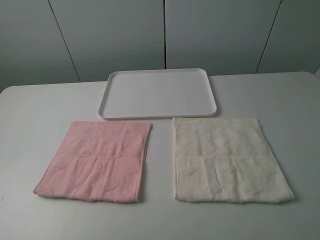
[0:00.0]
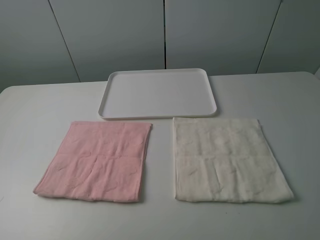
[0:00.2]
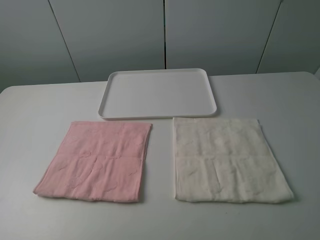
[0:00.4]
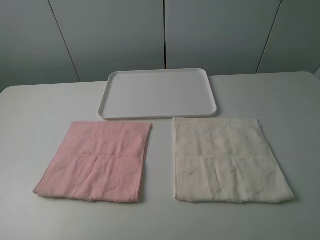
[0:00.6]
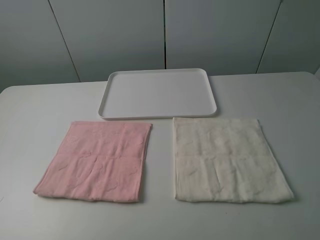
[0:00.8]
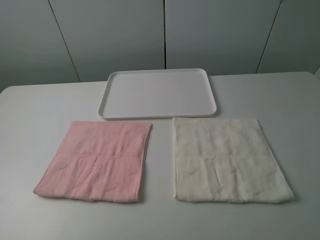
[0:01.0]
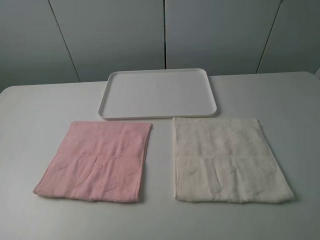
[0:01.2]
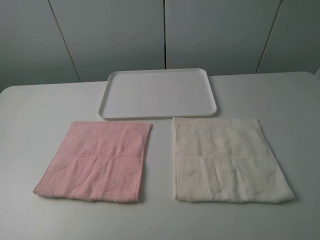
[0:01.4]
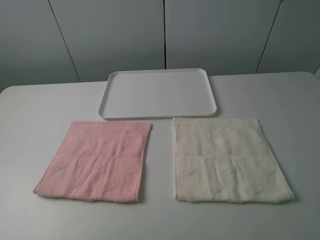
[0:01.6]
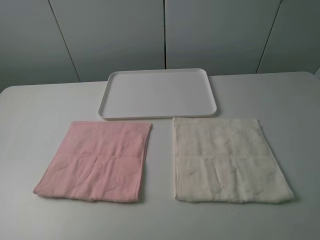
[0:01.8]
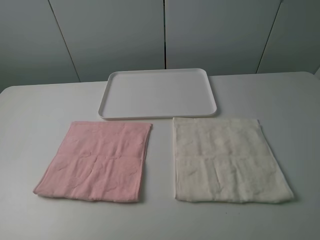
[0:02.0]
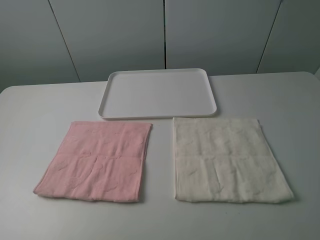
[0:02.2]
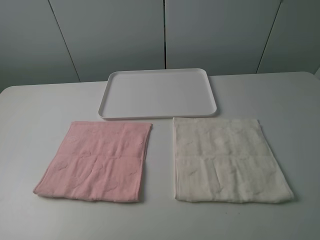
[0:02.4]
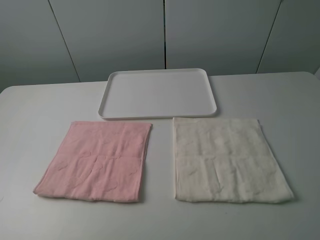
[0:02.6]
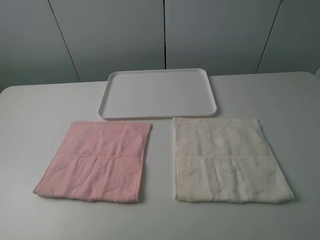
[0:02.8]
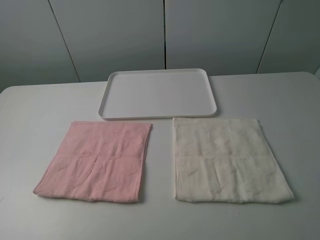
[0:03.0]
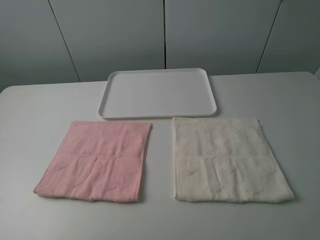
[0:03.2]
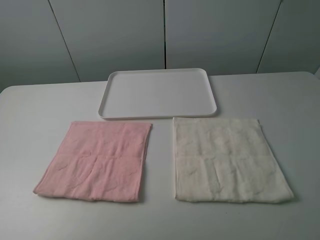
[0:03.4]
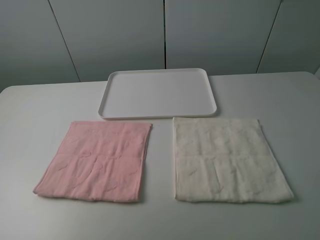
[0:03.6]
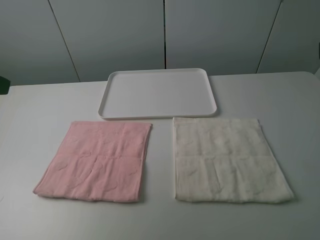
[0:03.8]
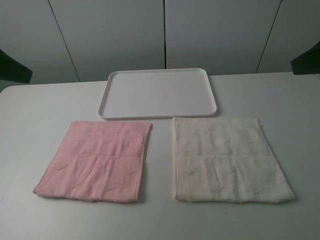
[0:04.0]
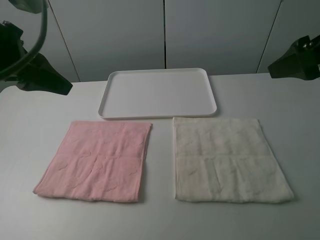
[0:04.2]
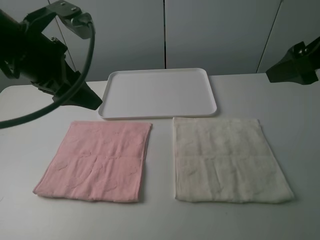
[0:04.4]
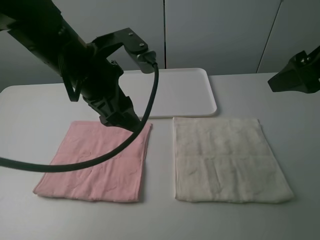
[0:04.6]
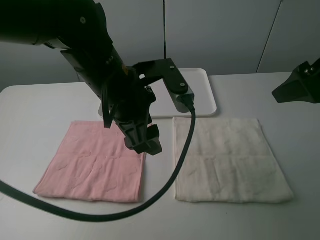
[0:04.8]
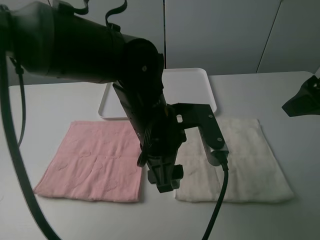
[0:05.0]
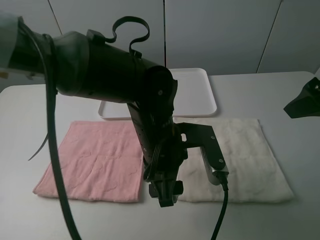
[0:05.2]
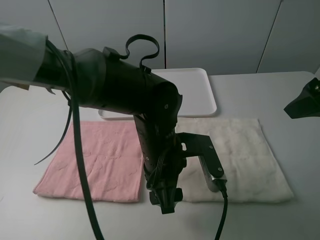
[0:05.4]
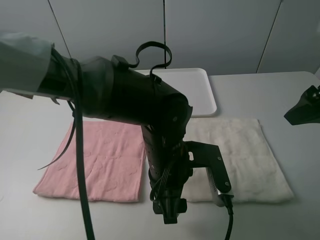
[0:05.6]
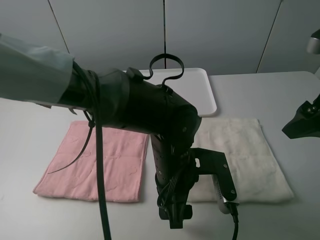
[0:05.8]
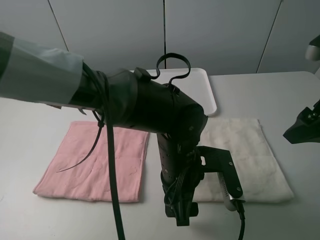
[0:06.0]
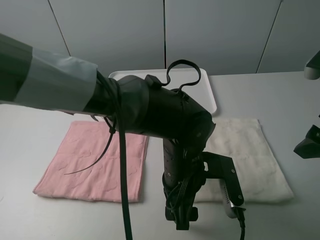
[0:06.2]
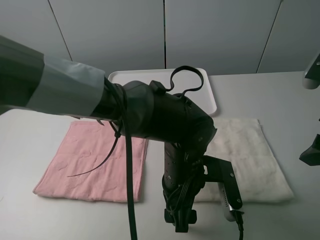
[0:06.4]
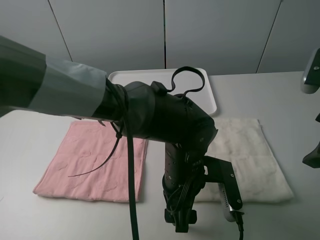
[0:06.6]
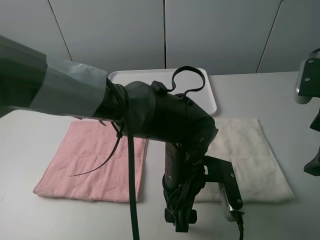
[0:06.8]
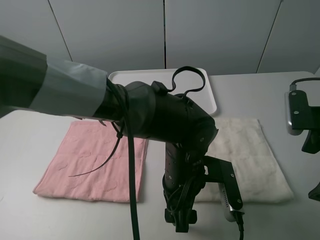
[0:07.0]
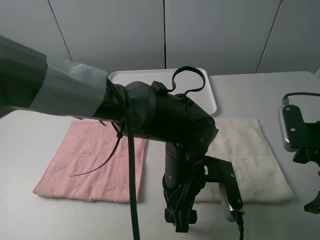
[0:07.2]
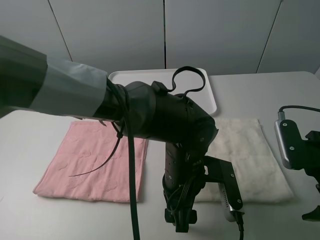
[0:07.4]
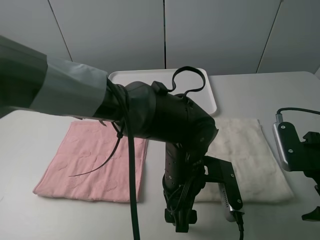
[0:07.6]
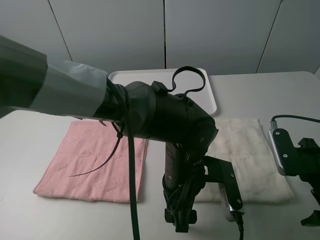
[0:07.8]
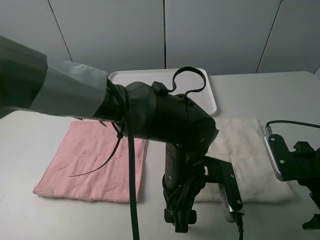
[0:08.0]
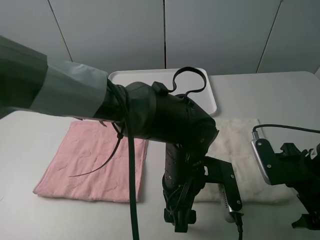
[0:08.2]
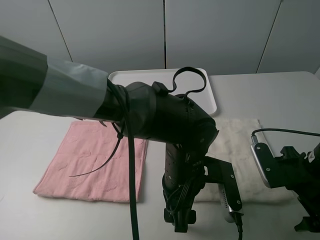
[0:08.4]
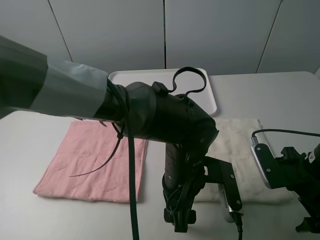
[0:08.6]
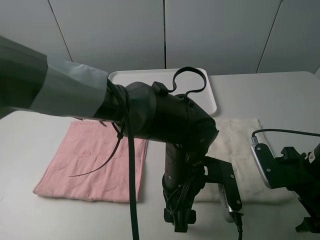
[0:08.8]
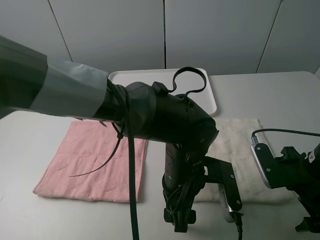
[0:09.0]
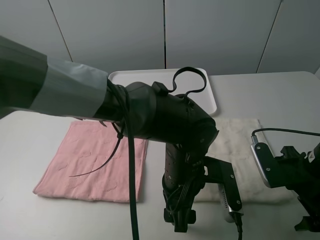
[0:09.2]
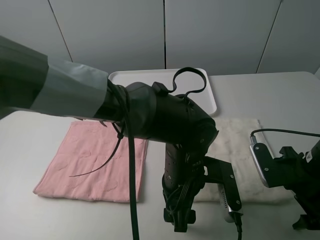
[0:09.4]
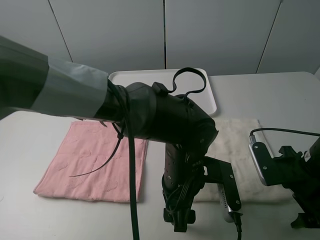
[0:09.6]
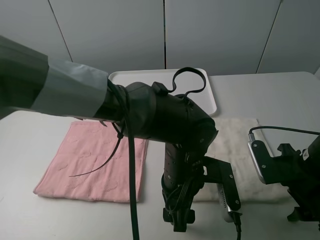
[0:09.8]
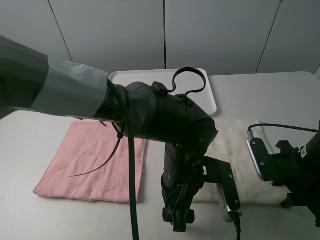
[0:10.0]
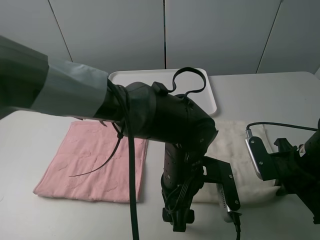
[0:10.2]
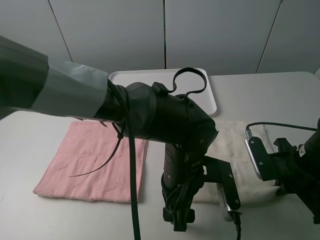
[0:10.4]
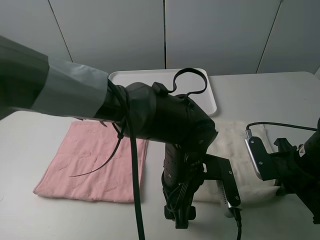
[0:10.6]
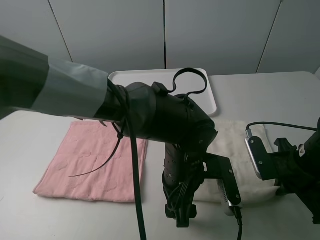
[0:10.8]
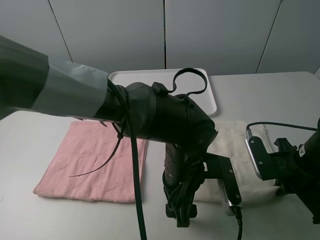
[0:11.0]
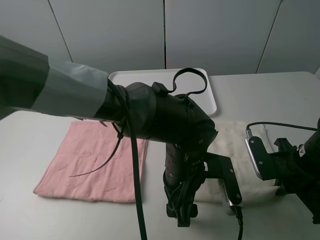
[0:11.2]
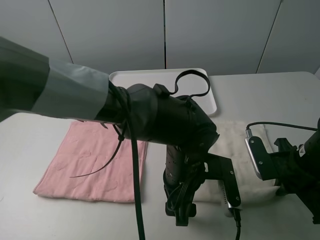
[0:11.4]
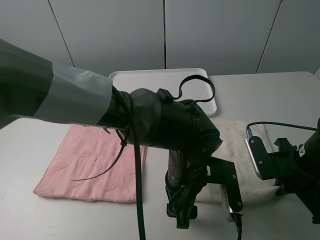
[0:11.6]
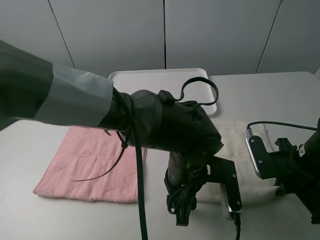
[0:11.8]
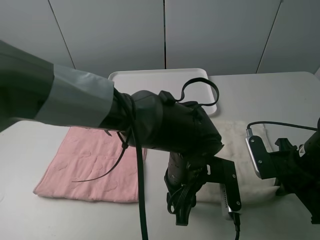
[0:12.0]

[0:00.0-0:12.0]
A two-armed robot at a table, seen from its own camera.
Task of the whole recording: fold one of the towels by two grippers and place it on the tray,then fold another towel by two grippers and place it on the folded towel.
0:00.0 to 0:03.0: Neither gripper changes place.
0:03.0 to 0:04.4: The right gripper goes some 20 cm forward. Meanwhile the left gripper travels forward and to the right by approximately 30 cm.
0:04.4 to 0:06.0: The left gripper shifts about 25 cm to the right and downward, while the right gripper goes approximately 5 cm downward.
0:06.0 to 0:07.6: The right gripper is displaced downward by about 10 cm.
0:07.6 to 0:09.0: The grippers make only small movements.
0:09.0 to 0:10.4: The right gripper closes up.
0:10.4 to 0:12.0: The left gripper closes.

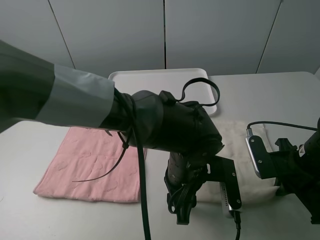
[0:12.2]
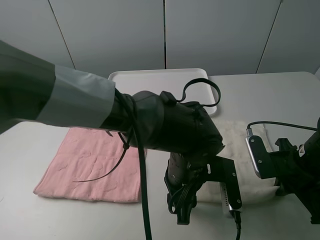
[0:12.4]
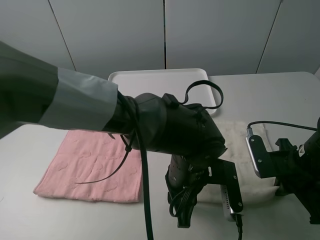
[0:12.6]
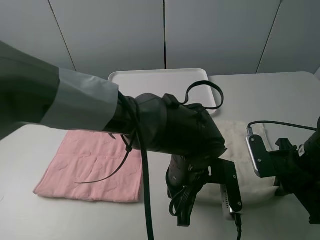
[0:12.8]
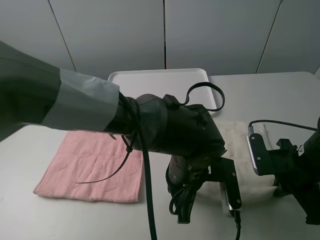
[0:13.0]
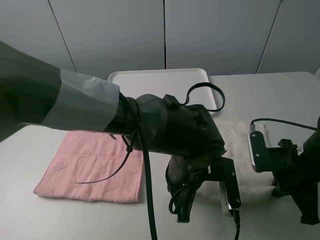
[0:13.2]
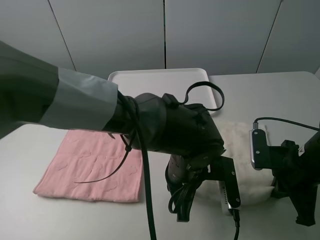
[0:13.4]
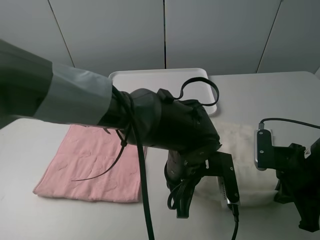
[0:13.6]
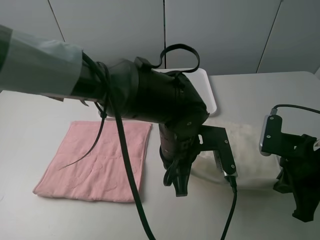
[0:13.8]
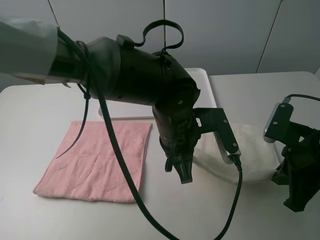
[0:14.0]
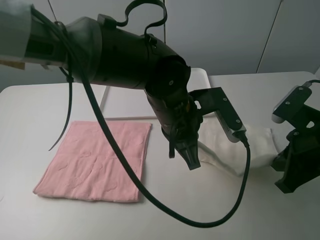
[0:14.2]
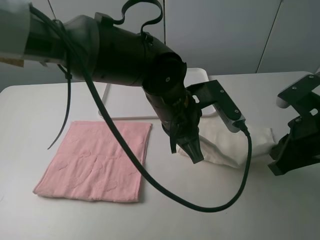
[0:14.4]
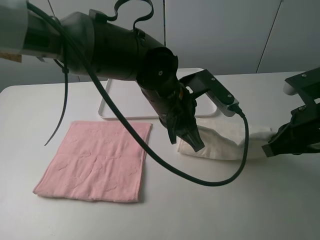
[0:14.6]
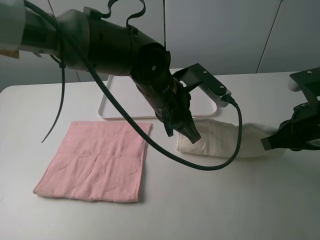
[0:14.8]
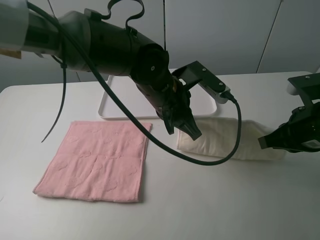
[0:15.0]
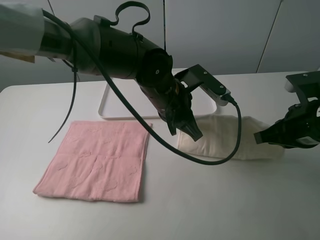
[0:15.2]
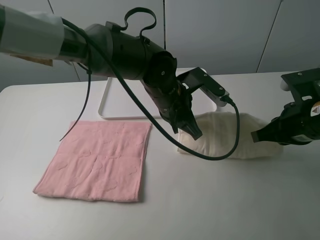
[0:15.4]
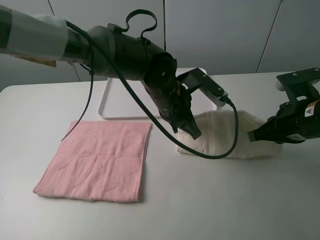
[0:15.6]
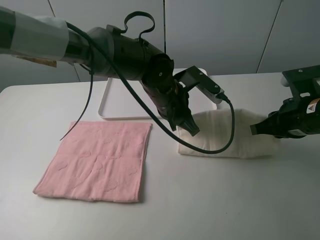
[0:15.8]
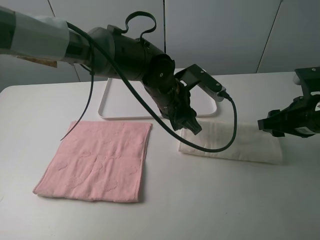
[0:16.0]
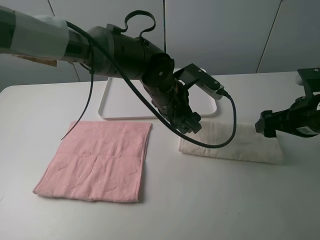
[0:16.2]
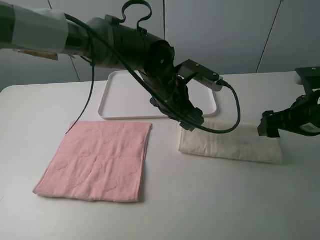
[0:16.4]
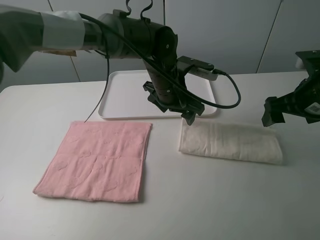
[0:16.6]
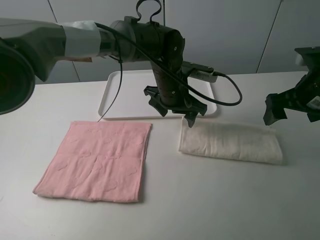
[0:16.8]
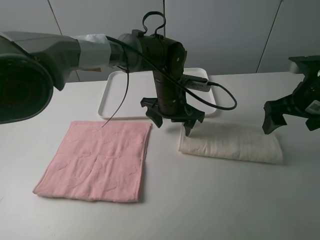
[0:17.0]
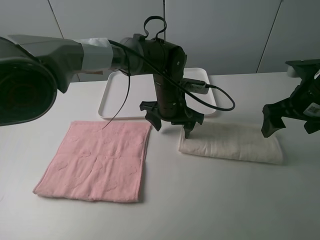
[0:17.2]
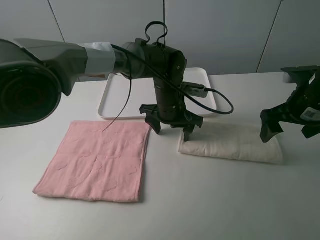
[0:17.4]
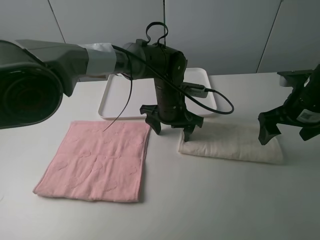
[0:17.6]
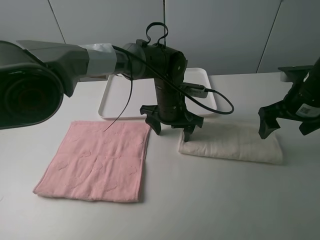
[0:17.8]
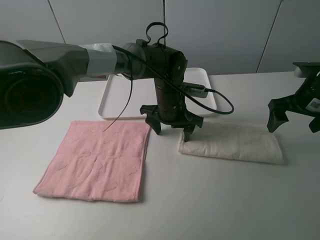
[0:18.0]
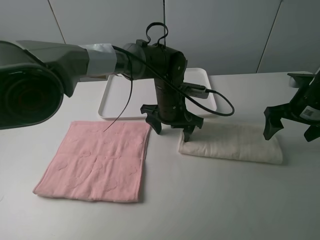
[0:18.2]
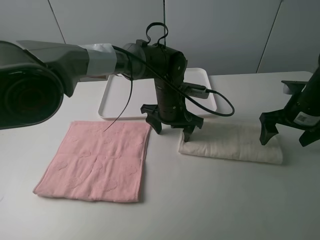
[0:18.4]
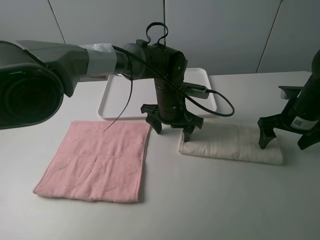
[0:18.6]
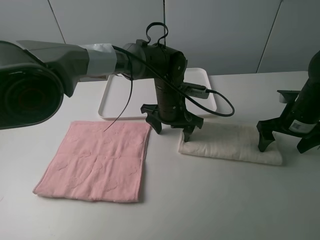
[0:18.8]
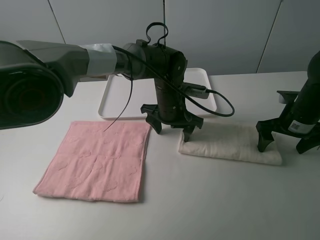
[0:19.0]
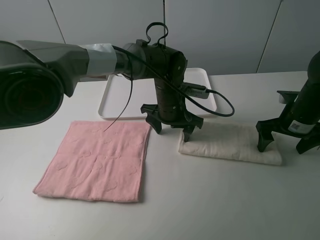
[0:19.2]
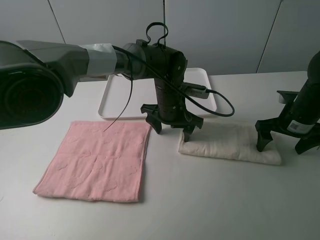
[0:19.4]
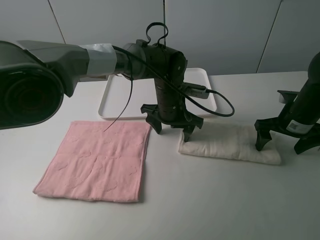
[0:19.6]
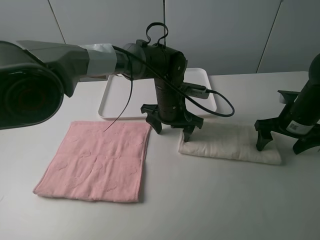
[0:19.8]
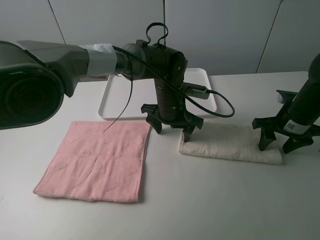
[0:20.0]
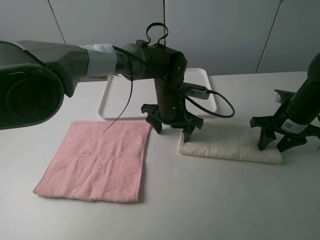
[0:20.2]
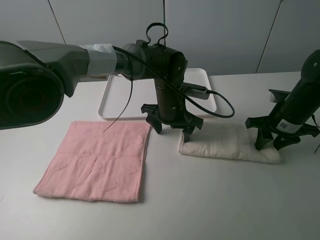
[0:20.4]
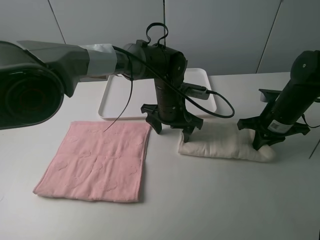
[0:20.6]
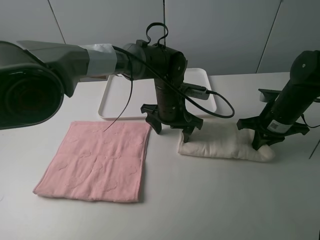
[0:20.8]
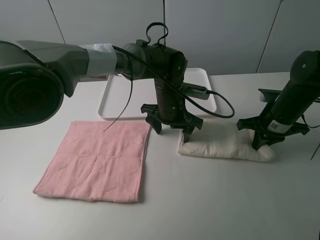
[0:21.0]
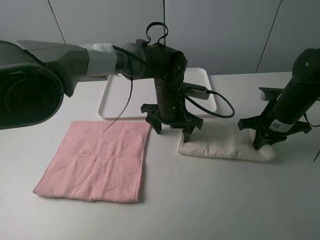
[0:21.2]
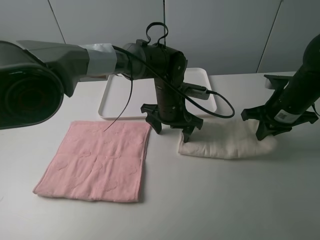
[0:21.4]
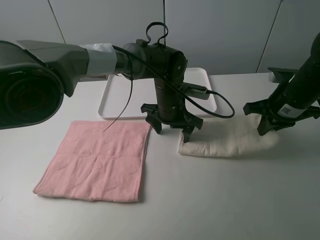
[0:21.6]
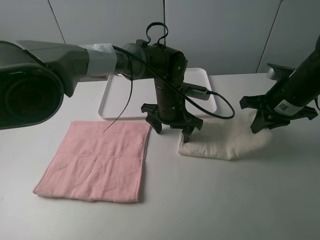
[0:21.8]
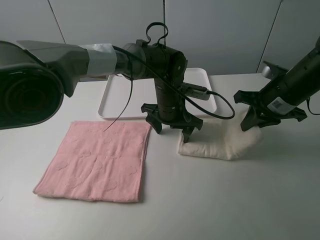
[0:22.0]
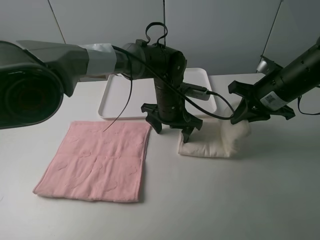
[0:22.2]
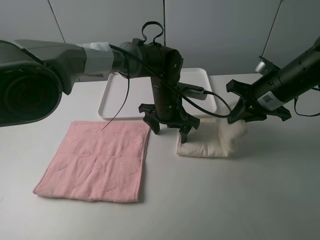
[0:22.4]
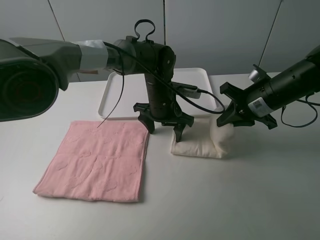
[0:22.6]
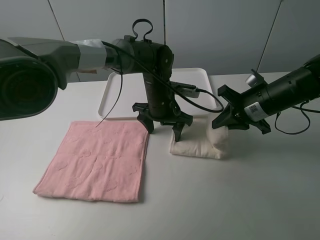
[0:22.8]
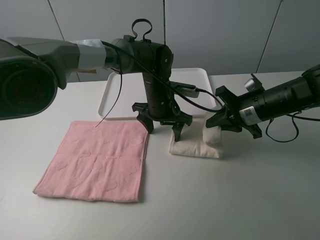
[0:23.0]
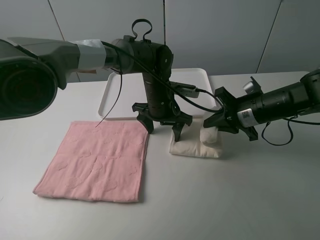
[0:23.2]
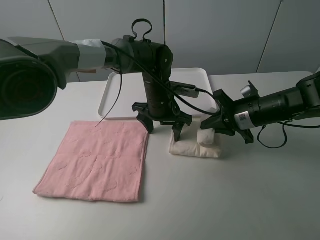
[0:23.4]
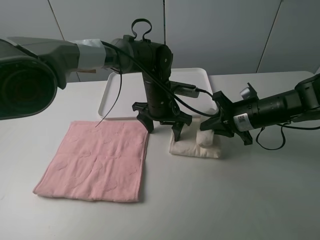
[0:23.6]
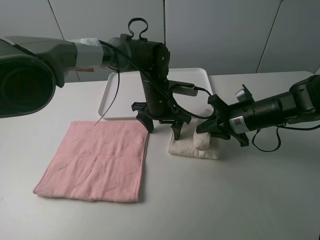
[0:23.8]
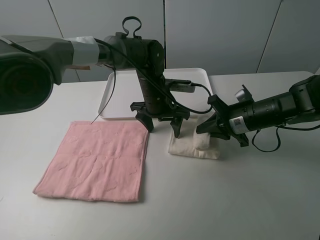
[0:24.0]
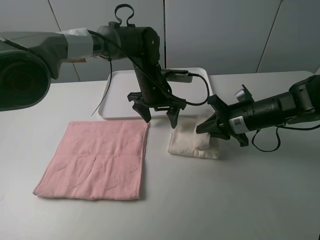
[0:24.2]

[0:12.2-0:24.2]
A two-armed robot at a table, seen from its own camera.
Task of the whole recording: fold one of the towels by two grippers and place it on the tray,then fold another towel by two grippers and place it on the folded towel.
Step, 0:13.4 to 0:16.0: Fold the white towel upwards with the left gripper.
Step, 0:16.2 to 0:20.8: Press the white towel with the left gripper.
0:12.2 to 0:13.8: The left gripper moves about 5 cm, and closes.
0:13.8 to 0:15.2: The right gripper moves about 5 cm, while the left gripper is displaced forward by roughly 5 cm.
0:15.2 to 0:16.6: The grippers both shift forward by some 5 cm. The left gripper opens its fingers. Meanwhile the right gripper opens its fingers.
0:16.6 to 0:18.2: The grippers both shift downward by roughly 5 cm.
0:18.2 to 0:19.8: The grippers stay close to where they were, moving slightly.
0:19.8 to 0:21.2: The right gripper closes.
0:21.2 to 0:22.6: The right gripper changes place by approximately 5 cm.
0:22.6 to 0:24.2: The right gripper goes some 5 cm downward.
